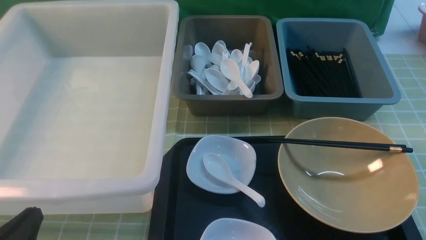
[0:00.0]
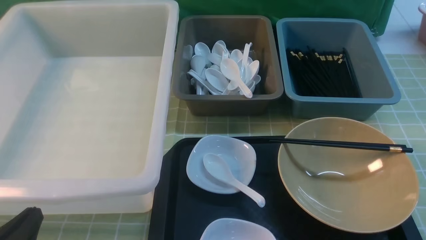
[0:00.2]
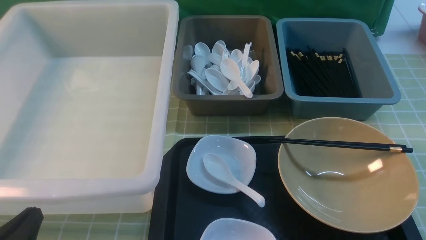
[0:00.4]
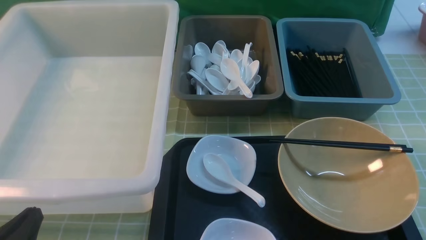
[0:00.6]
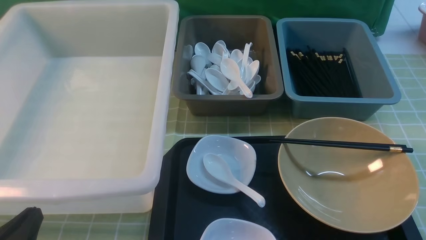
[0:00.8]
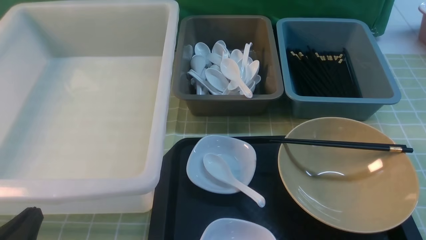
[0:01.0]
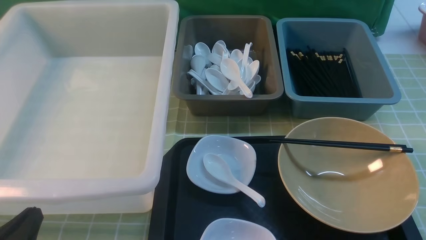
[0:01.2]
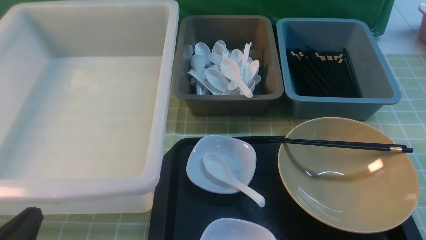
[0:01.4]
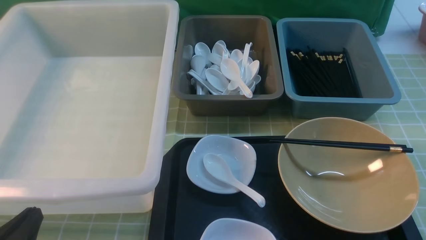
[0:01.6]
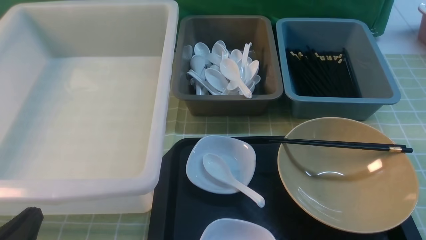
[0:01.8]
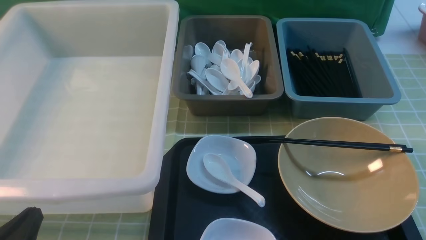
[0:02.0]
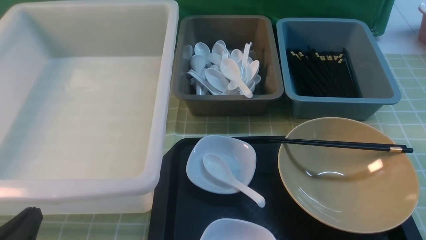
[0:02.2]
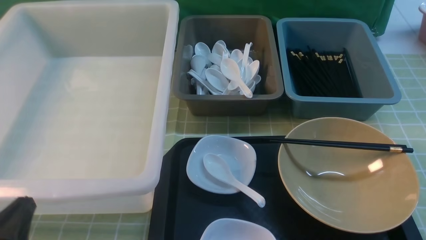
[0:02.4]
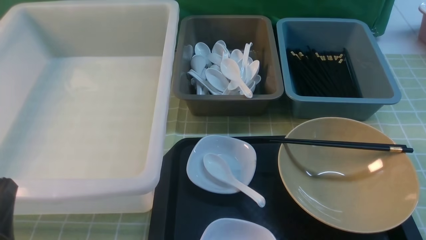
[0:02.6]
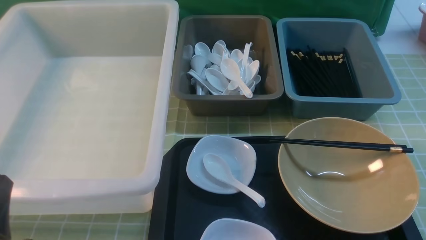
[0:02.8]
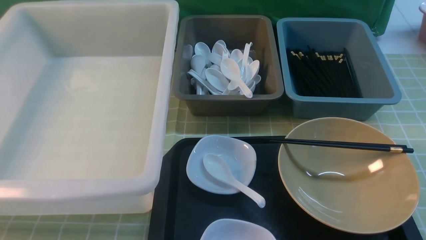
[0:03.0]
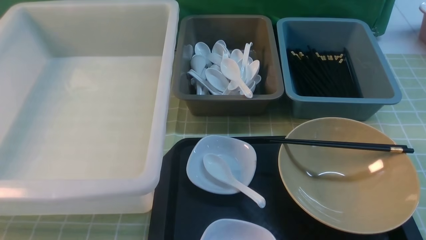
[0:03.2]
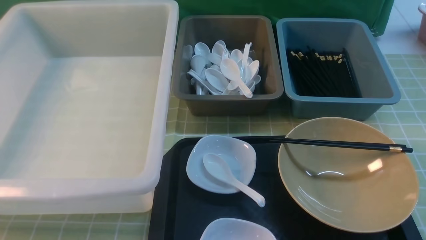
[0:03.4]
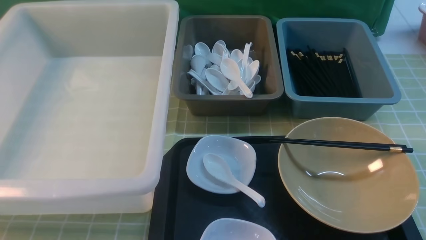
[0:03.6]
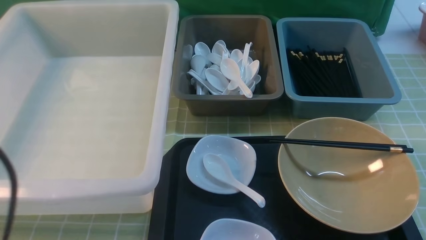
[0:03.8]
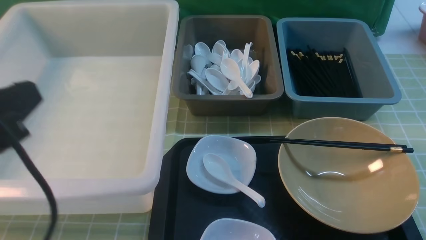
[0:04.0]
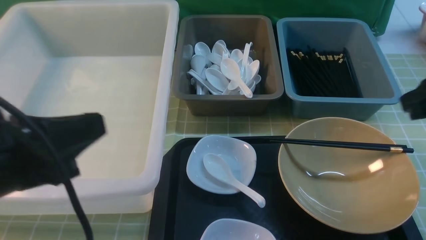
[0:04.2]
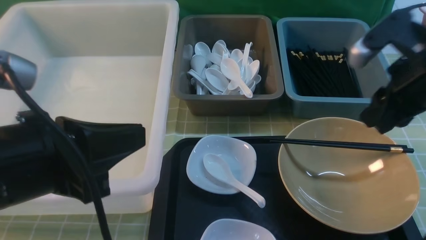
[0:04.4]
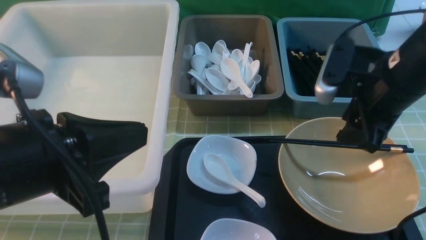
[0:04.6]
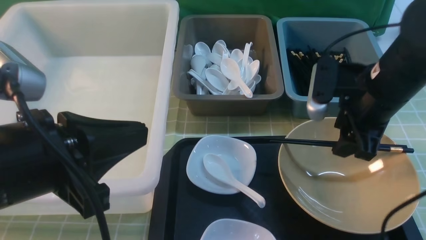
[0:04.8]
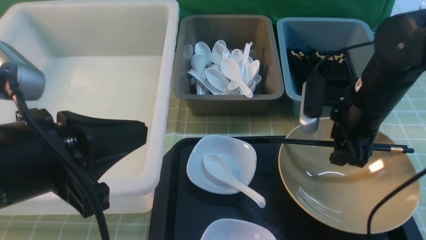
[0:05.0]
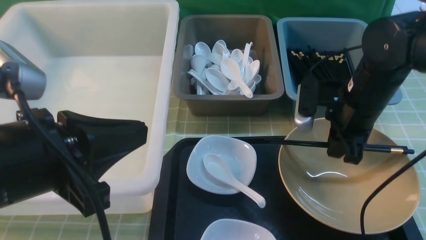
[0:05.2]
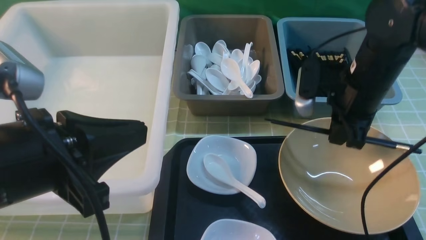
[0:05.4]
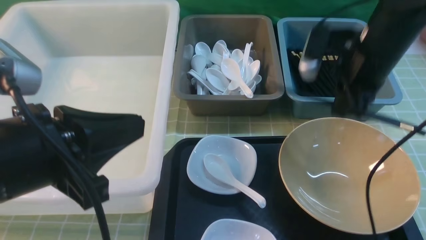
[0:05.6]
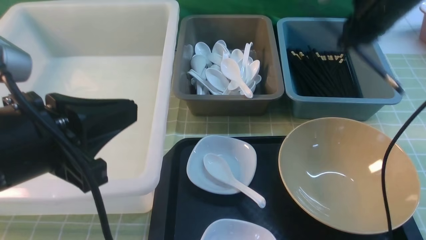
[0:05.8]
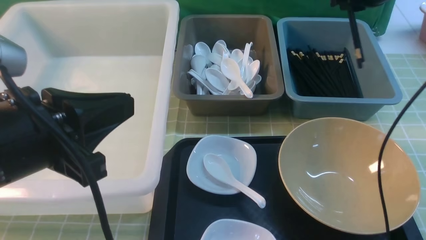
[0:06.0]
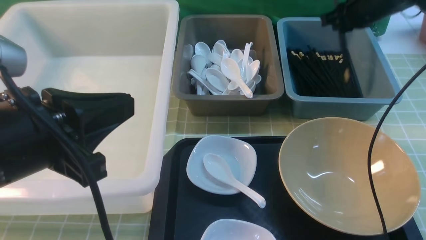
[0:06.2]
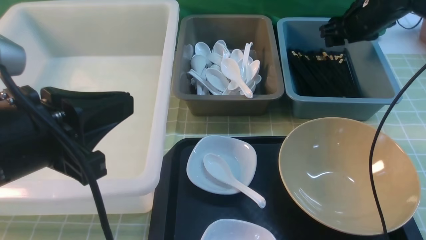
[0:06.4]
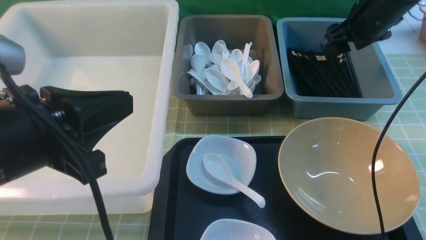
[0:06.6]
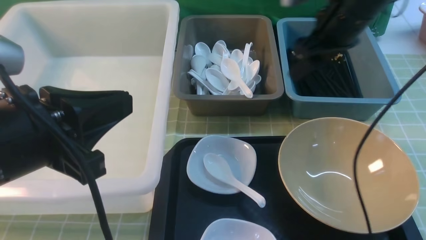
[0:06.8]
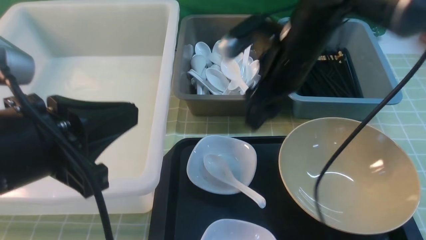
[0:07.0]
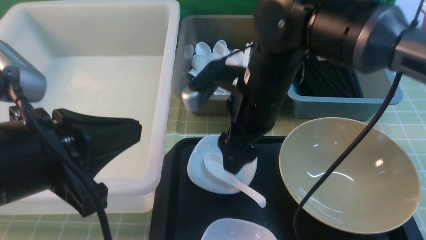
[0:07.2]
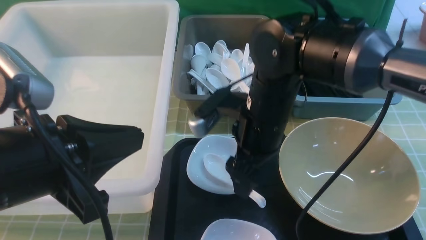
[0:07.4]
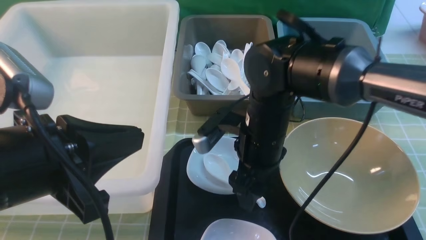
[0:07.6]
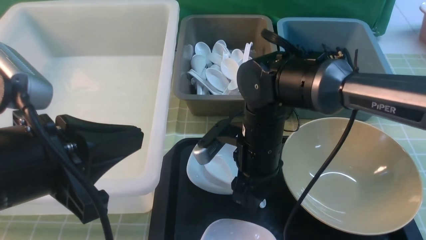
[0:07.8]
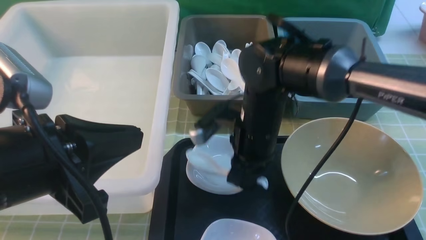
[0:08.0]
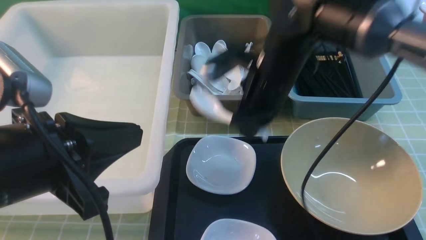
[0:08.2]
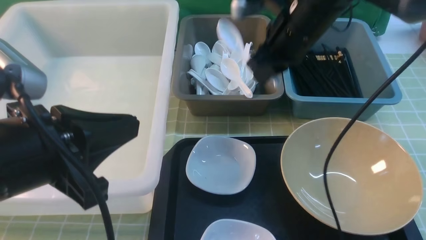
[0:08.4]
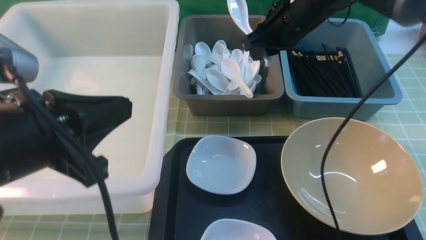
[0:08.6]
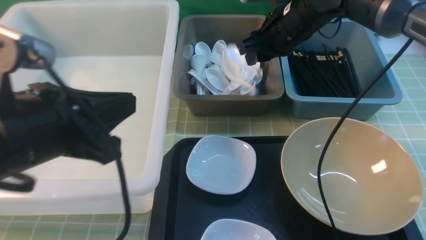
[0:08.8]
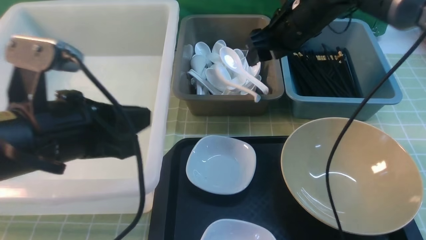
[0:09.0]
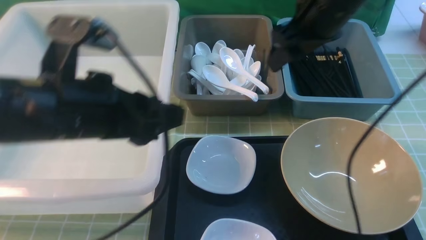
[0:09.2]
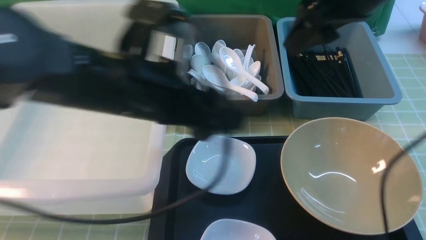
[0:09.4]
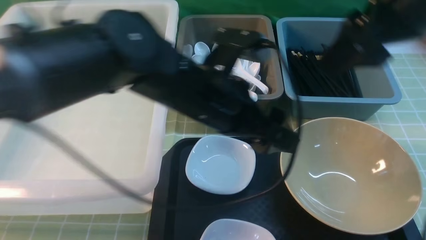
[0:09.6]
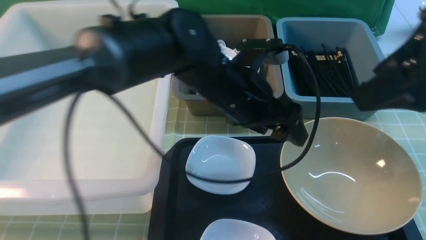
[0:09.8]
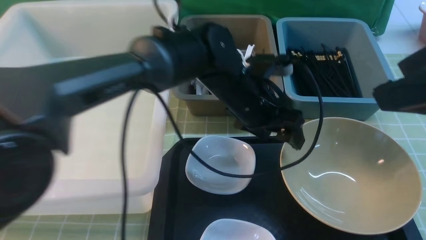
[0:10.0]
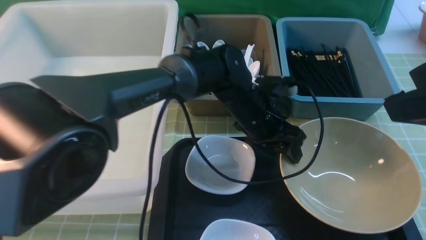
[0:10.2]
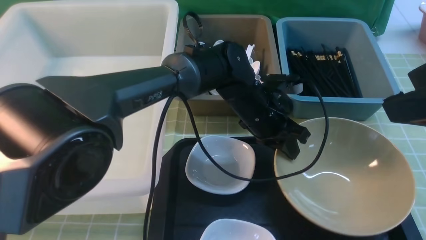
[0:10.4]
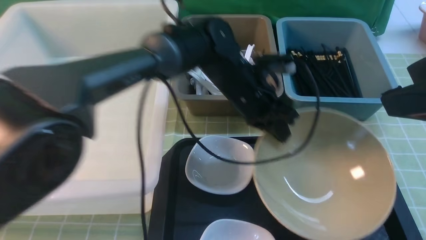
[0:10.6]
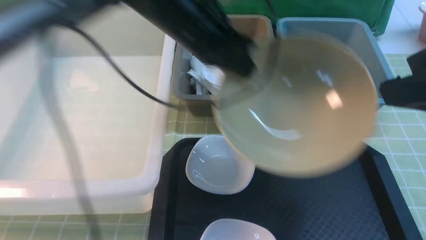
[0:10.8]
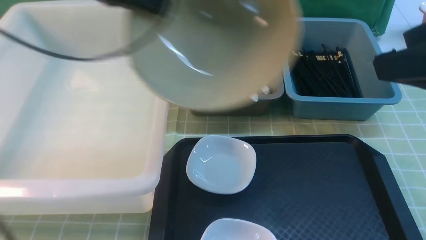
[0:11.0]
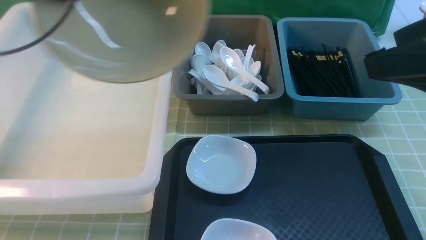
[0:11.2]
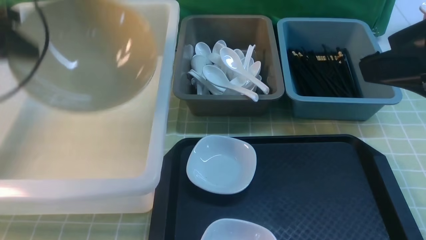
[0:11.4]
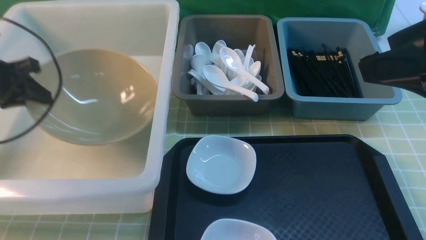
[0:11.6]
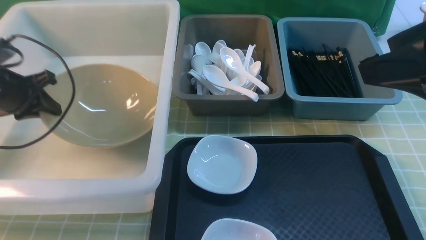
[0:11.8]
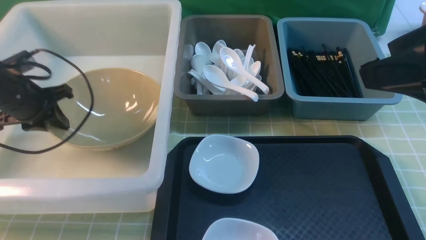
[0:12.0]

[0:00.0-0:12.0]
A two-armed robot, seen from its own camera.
Task of the whole recording: on green table put chopsticks spoon bowls plates into blue grey white boxes.
Step, 0:00.0 to 0:05.4: use the right arm to grab the chopsticks.
Step, 0:05.6 to 0:06.4: use the right arm to put the chopsticks into the small storage box on the right.
Step, 0:06.8 to 0:08.0: use the right arm to grab the soup spoon in the middle.
Step, 0:08.2 to 0:09.0: use the right arm to put the soup spoon into the small storage box in the middle.
Step, 0:09.2 to 0:10.8: use the left arm to grab the yellow noodle bowl on the left.
0:00.0 to 0:01.6: The two grippers keep their place.
0:01.6 to 0:03.0: The left gripper shifts approximately 5 cm upward.
0:03.0 to 0:04.4: The right gripper is displaced forward by roughly 25 cm, while the left gripper is displaced upward, to the right and forward by some 15 cm.
0:04.4 to 0:06.0: The right gripper heads forward, covering some 20 cm.
0:06.0 to 0:07.6: The right gripper heads to the left, backward and downward, covering about 30 cm, and opens.
0:07.6 to 0:09.0: The right gripper travels upward, forward and to the right by some 20 cm, and closes, then reopens; the left gripper heads forward, covering roughly 5 cm.
0:09.0 to 0:10.4: The right gripper shifts approximately 25 cm backward. The left gripper goes approximately 30 cm to the right, forward and downward, and opens, then closes again.
0:10.4 to 0:12.0: The left gripper goes approximately 35 cm to the left.

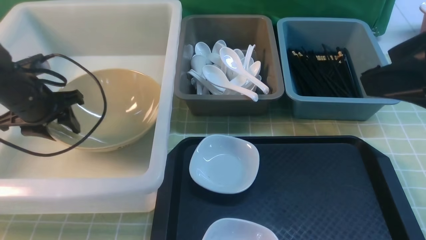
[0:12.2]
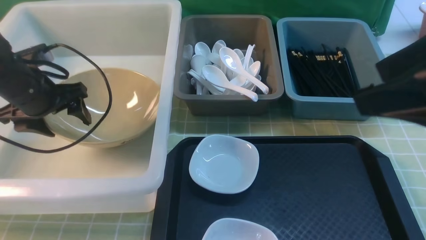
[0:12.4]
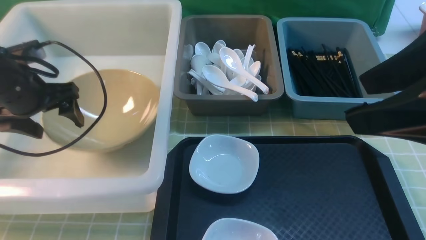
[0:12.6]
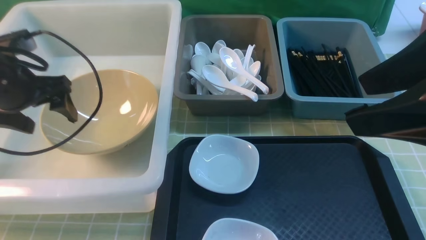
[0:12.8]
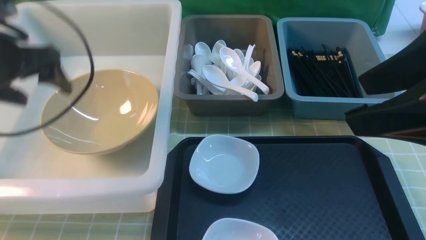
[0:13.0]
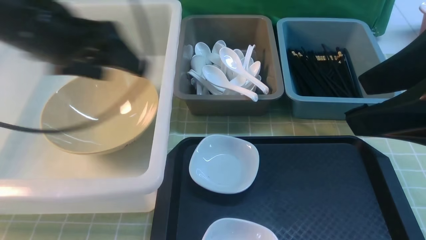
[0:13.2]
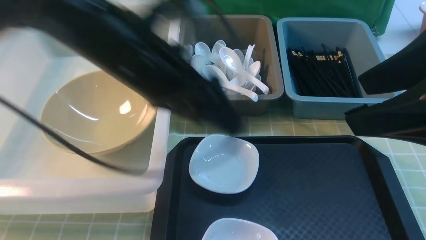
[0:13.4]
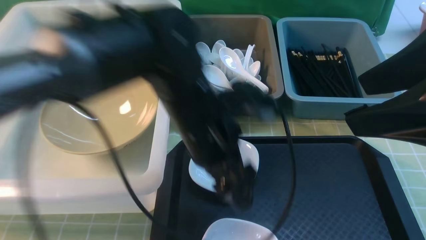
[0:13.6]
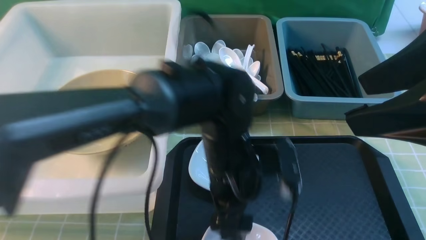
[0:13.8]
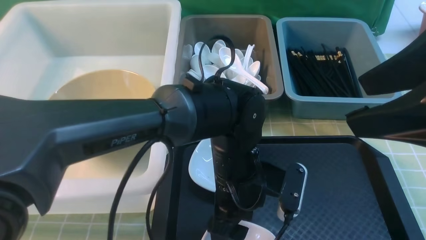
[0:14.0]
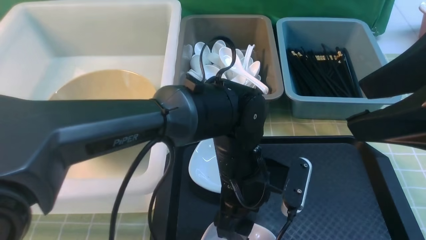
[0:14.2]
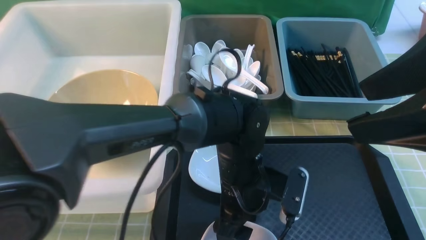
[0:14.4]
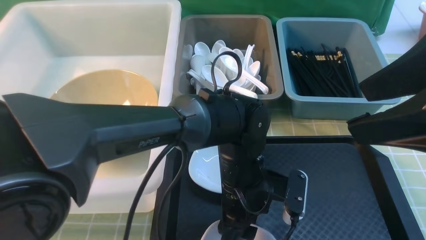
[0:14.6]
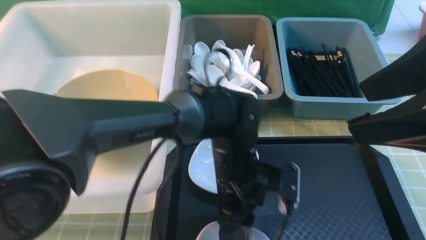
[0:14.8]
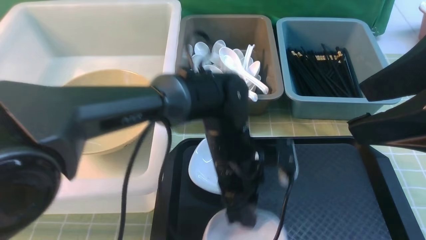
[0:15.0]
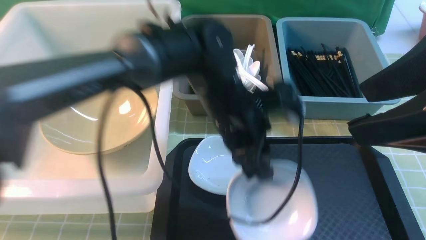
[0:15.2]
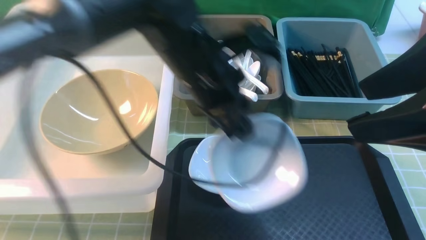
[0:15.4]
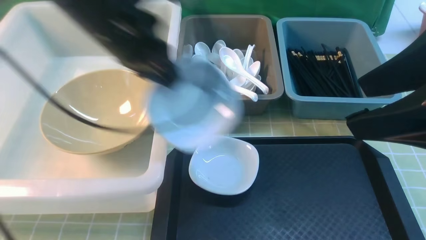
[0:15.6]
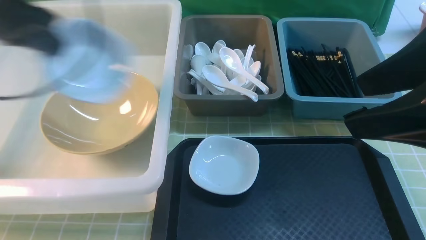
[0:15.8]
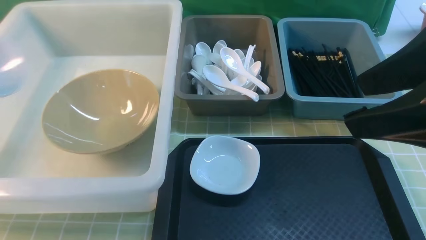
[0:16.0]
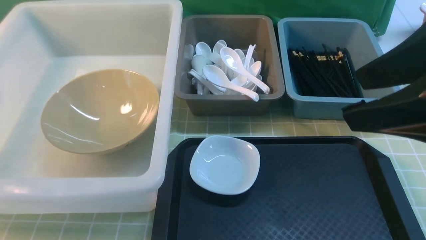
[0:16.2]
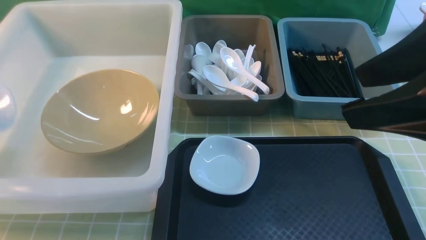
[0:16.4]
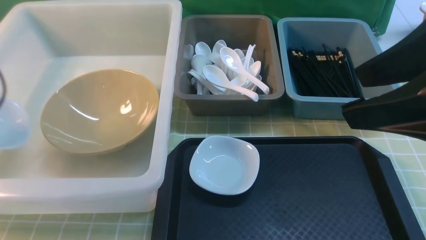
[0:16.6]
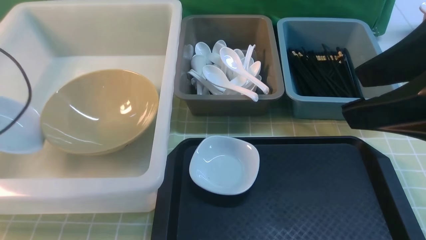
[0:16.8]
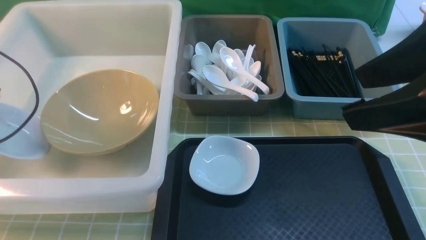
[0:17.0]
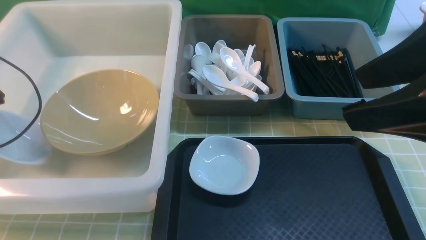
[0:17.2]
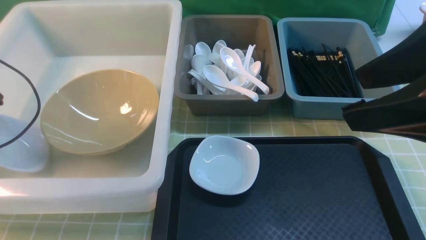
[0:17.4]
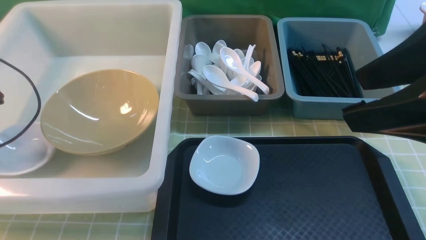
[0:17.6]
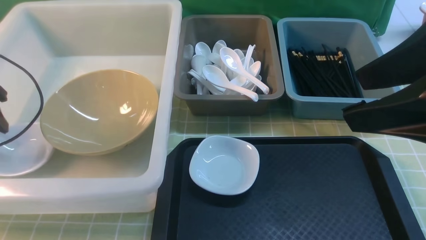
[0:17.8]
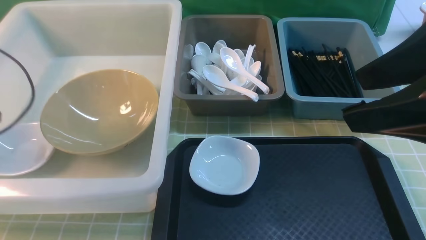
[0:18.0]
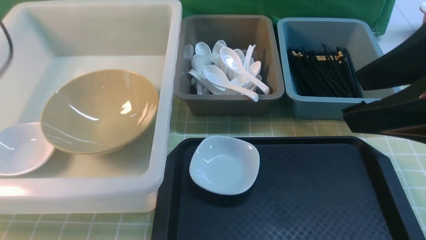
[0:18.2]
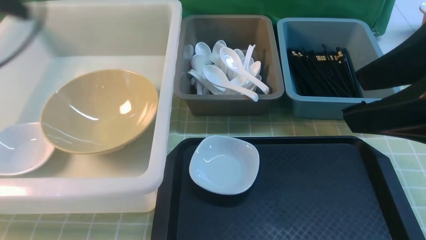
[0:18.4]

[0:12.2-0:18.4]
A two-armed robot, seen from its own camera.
Task of the whole recording: on green table put chopsticks spoon bowls plates into blue grey white boxes.
Step, 0:12.8 to 0:15.2: use the left arm to grab the plate.
Step, 0:15.4 to 0:17.6: use the left arm to put the plate into the large storage box on the left.
0:12.2 to 0:13.8: The left gripper is displaced to the right by some 30 cm.
0:13.8 to 0:15.4: The left gripper heads upward, to the left and forward, covering about 15 cm, and closes.
0:15.4 to 0:16.8: The left gripper shifts about 35 cm to the left.
0:16.8 to 0:18.4: The left gripper is displaced to the right and upward by some 20 cm, and opens its fingers.
